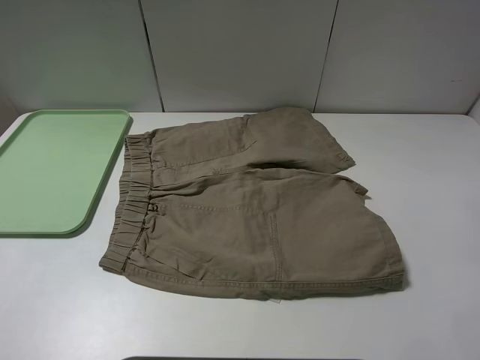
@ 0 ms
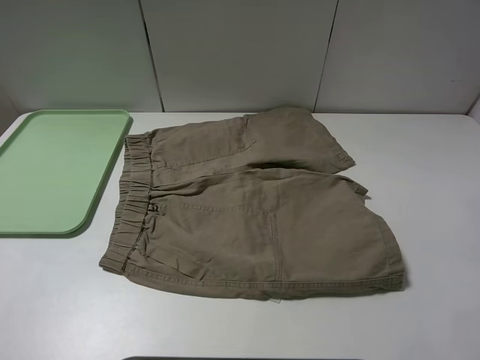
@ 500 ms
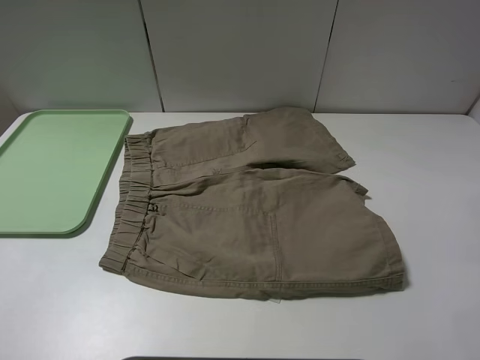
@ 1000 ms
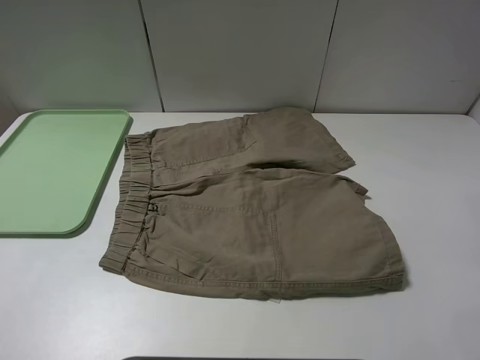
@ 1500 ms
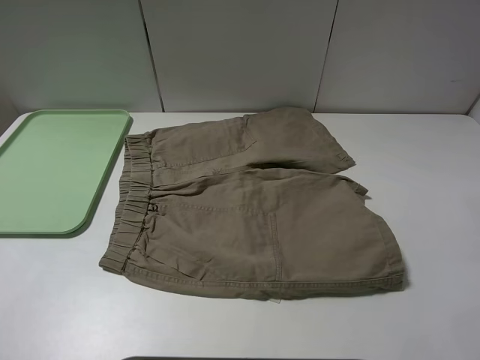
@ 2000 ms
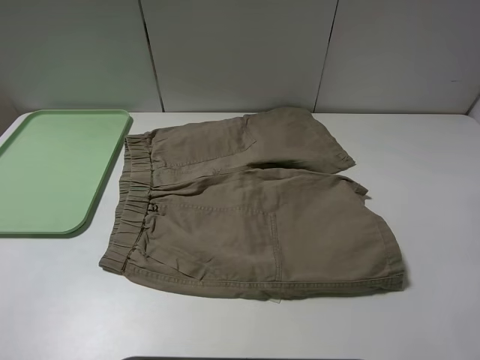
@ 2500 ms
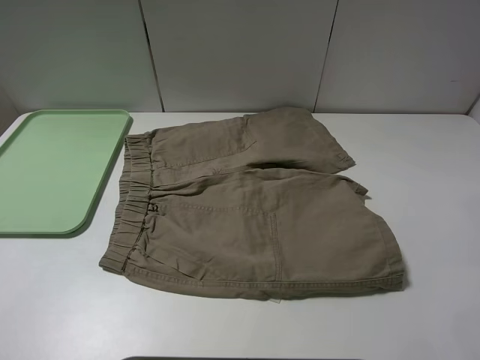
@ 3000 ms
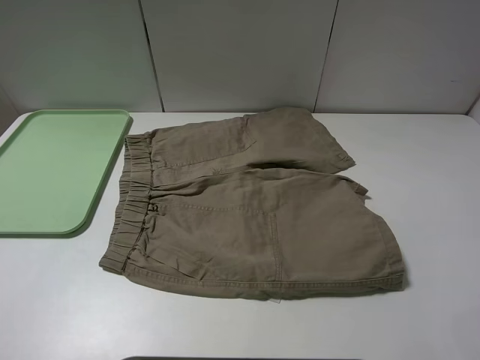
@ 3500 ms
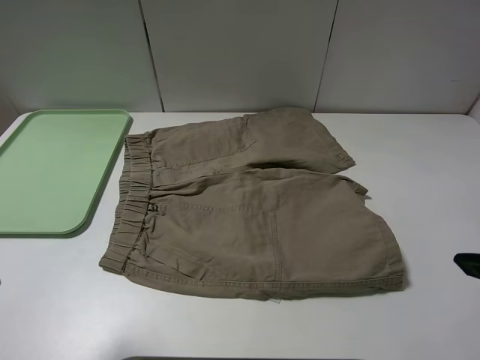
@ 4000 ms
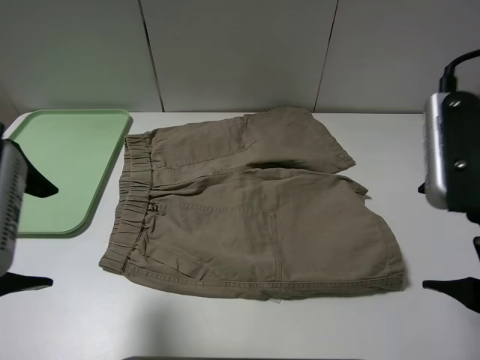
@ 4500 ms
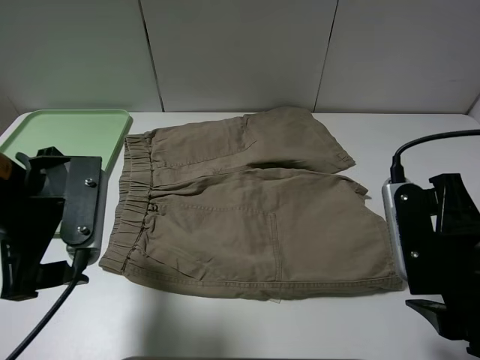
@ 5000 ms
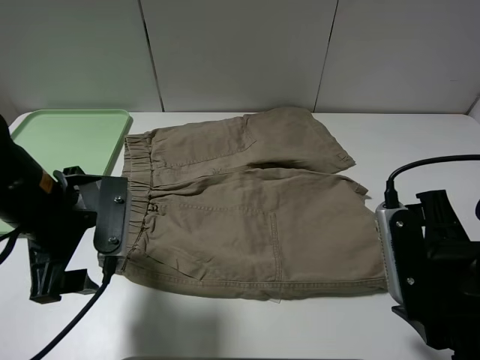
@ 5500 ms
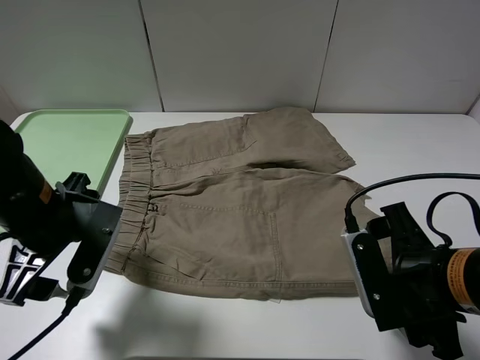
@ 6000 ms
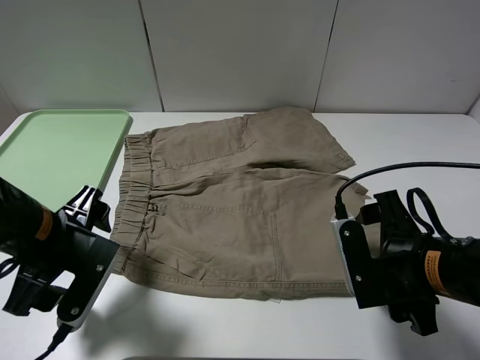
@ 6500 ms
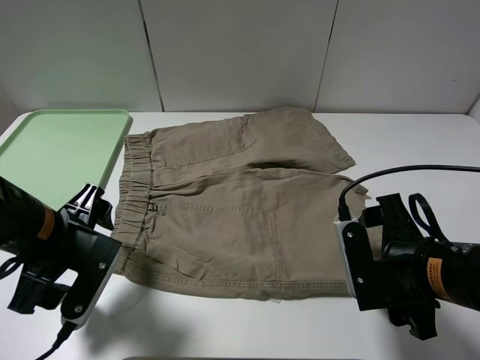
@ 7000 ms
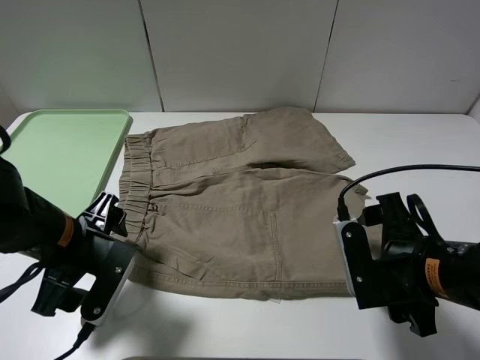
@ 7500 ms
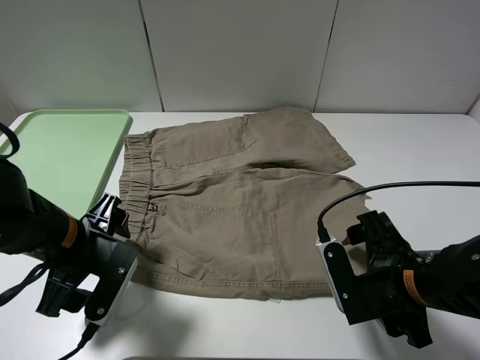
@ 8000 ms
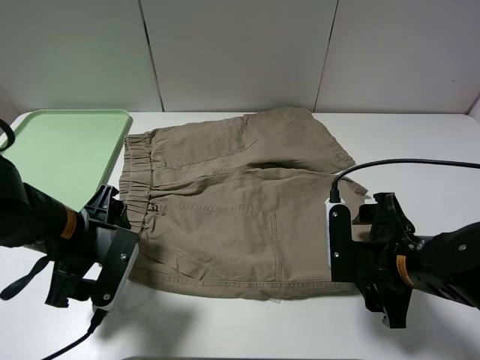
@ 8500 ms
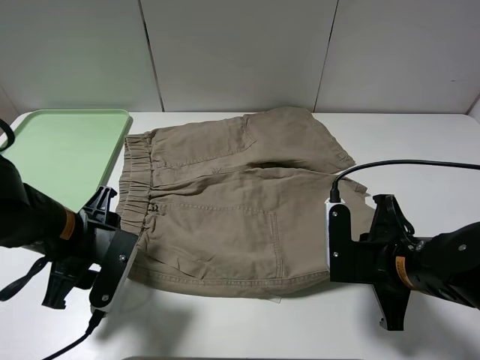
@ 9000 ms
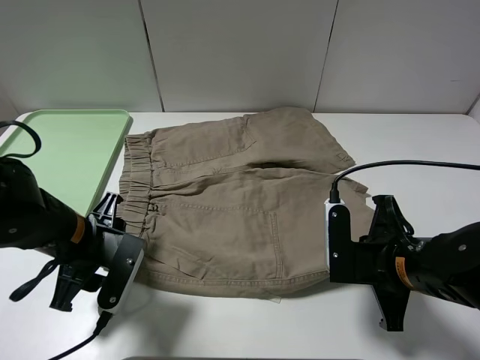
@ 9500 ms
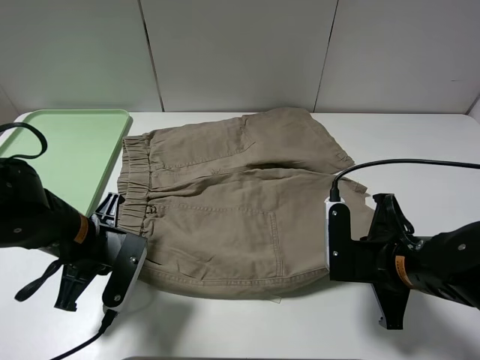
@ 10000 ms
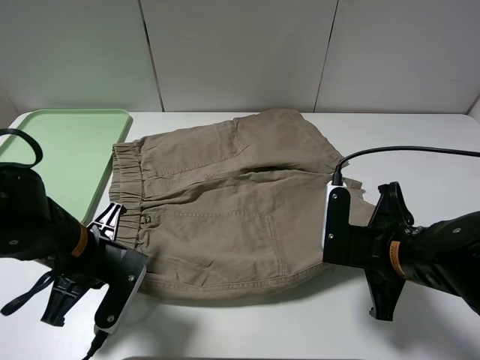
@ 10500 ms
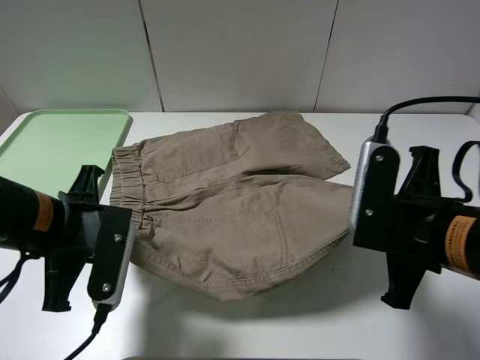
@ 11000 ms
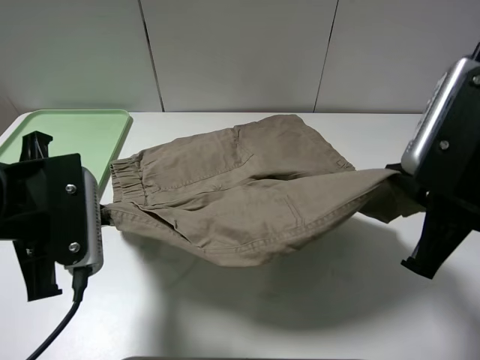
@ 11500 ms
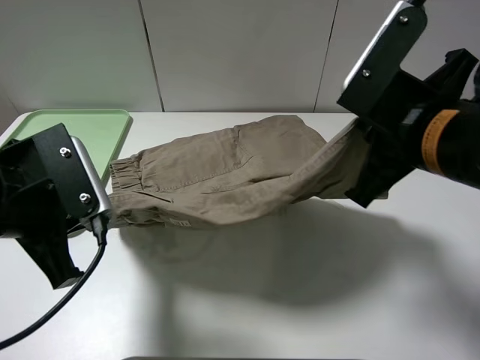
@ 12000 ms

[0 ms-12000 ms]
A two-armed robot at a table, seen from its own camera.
Task of the whole recording: fold the khaki jeans in half with two grippers, then fold them in half again, and use the left claw to place the folded fold khaki jeans on the tray.
Step, 0 ms to 9500 ms: Grasp the khaki trousers with the left gripper.
0 ms to 2000 ms: Both grippers stay put.
4000 ms to 6000 ms: The right gripper shifts about 15 cm downward; the left gripper shifts approximately 20 cm downward, forward and to the right.
6000 ms to 8000 ms: The left gripper goes some 5 cm downward.
8000 ms to 10000 ms: The right gripper closes. The left gripper closes.
10000 ms to 12000 ms: Both grippers travel together upward, about 15 cm.

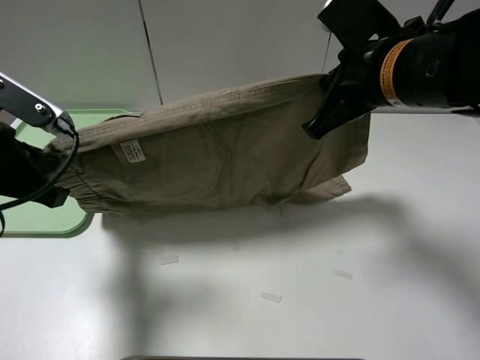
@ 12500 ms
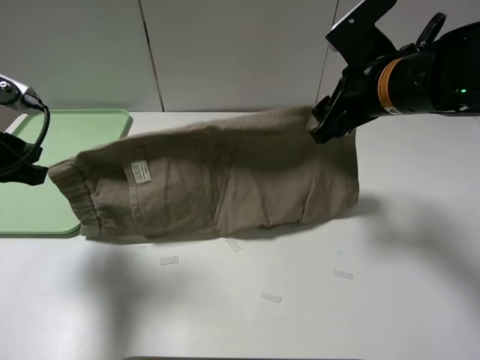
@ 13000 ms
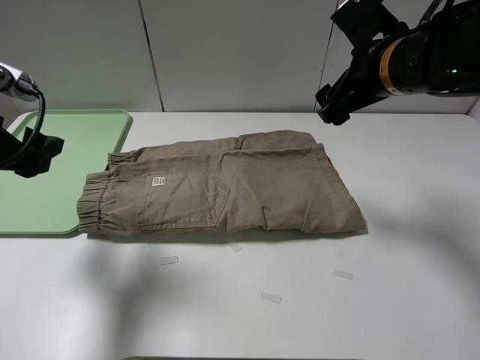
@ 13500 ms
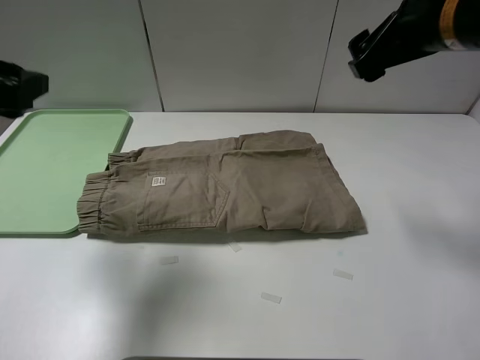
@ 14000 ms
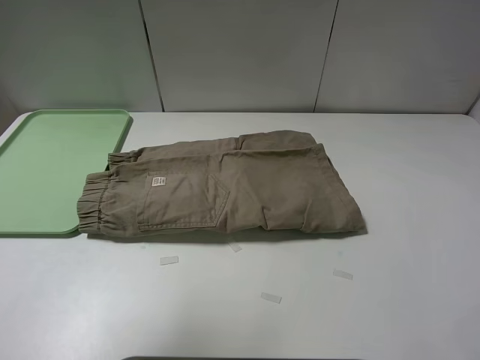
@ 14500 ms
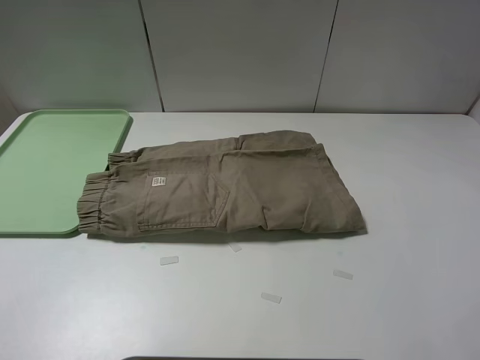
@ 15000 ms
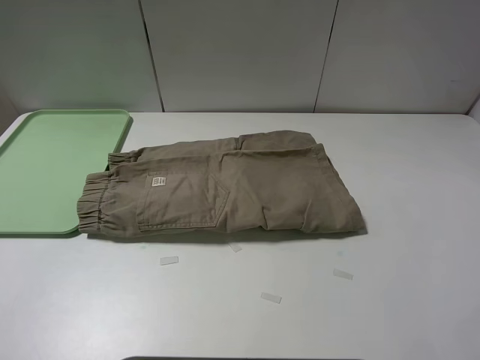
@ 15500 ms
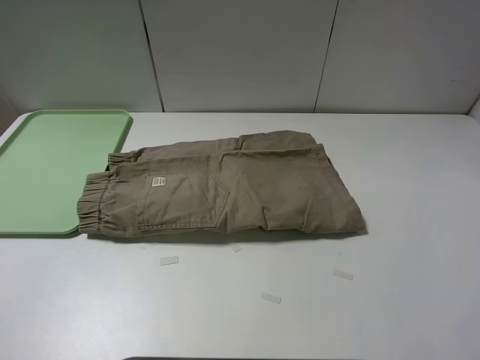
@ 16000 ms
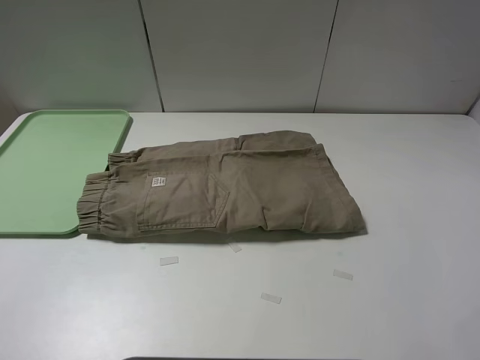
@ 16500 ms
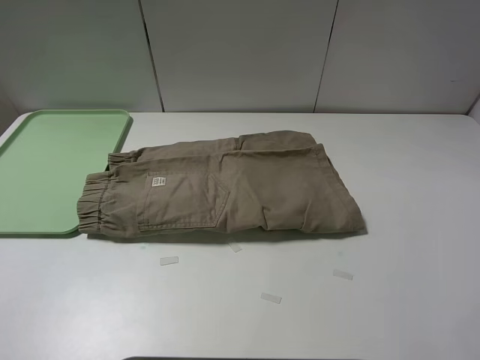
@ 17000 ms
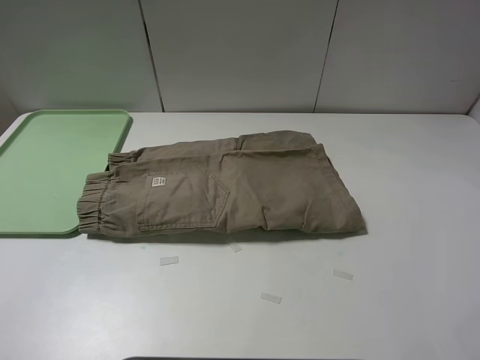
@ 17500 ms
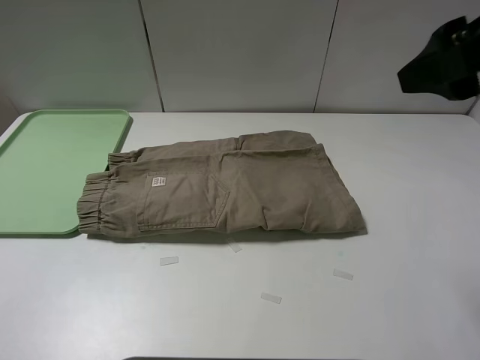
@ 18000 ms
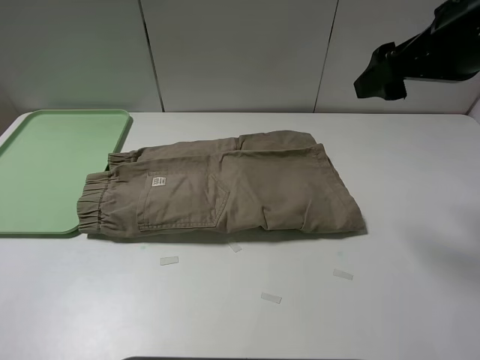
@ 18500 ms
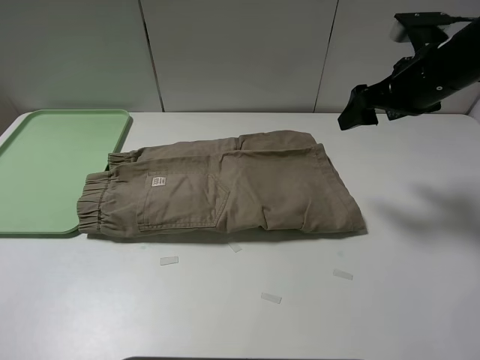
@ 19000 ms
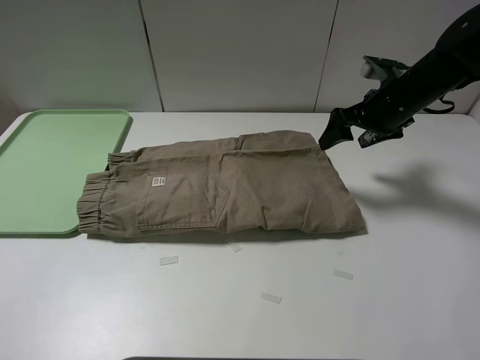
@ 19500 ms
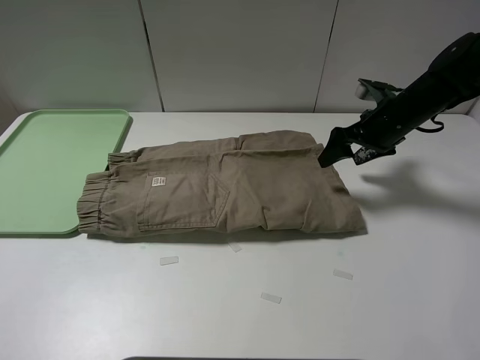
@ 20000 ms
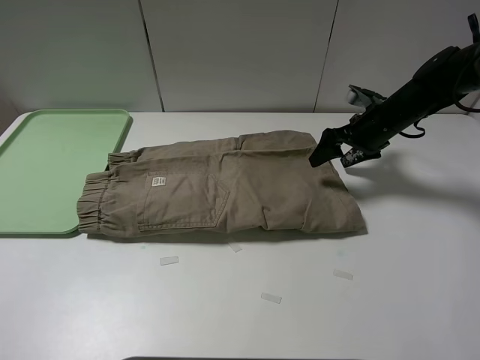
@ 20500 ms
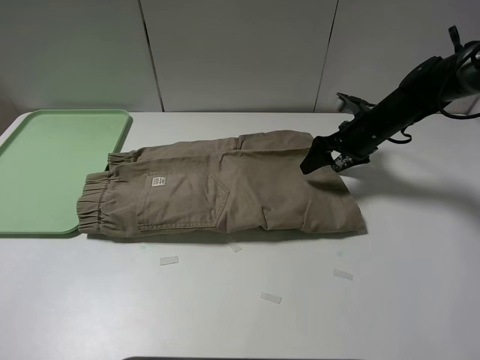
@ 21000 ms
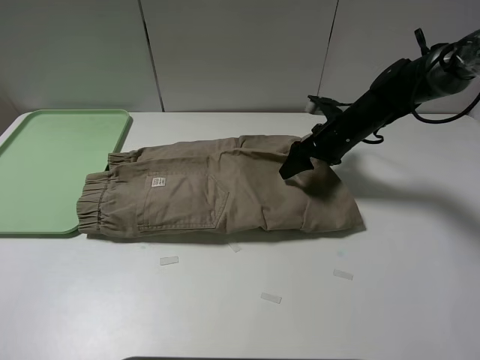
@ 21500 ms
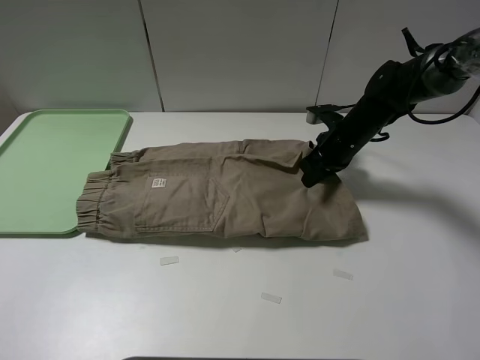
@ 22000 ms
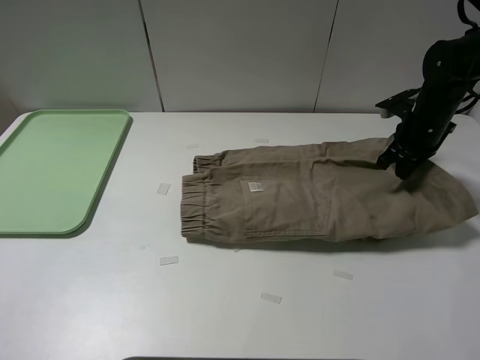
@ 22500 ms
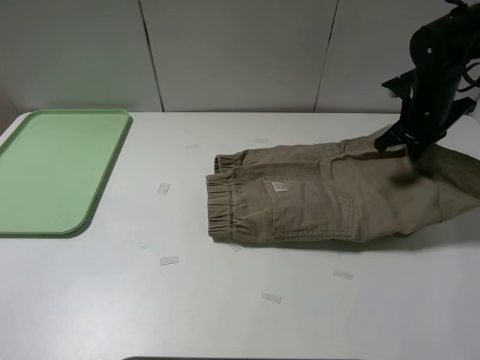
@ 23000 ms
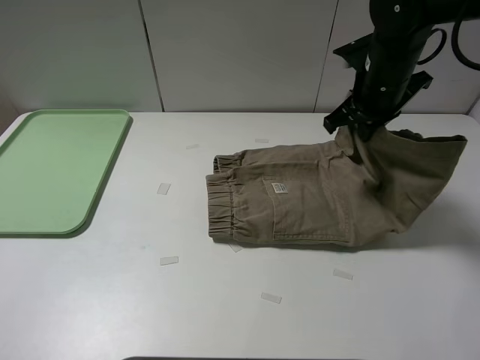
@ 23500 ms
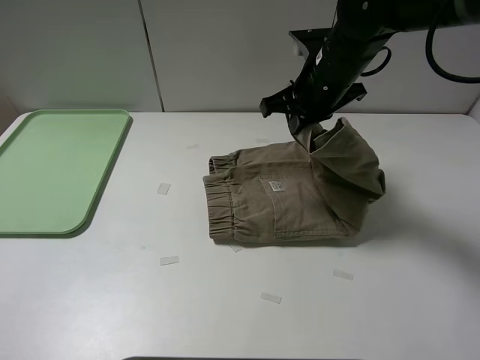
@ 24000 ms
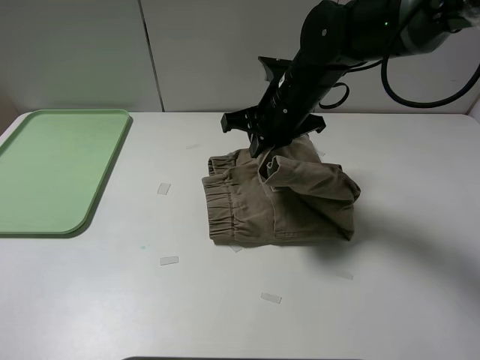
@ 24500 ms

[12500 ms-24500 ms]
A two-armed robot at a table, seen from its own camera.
Task of the whole recording: fold the khaki jeans in half with two grippers, then fold them in half again, and use the left claw to place the folded fold khaki jeans on the tray.
Step, 13500 ms to 22000 ms: Grasp the khaki trousers with the right gripper.
12500 ms to 14500 ms: The right gripper travels upward, to the right and backward by some 20 cm, and opens up. The left gripper goes roughly 20 cm upward, and opens.
14500 ms to 16500 ms: The right gripper shifts some 10 cm backward and to the right, while the left gripper travels downward and backward by approximately 20 cm.
16500 ms to 18500 ms: The right gripper travels forward and downward by roughly 25 cm.
18500 ms to 20500 ms: The right gripper travels downward and forward by some 25 cm.
20500 ms to 22500 ms: The right gripper goes approximately 5 cm to the right, and closes its fingers.
22500 ms to 24500 ms: The right gripper moves to the left, approximately 25 cm.

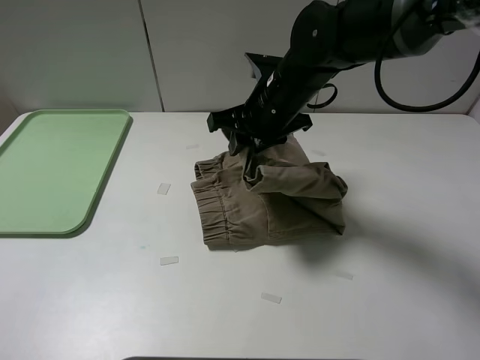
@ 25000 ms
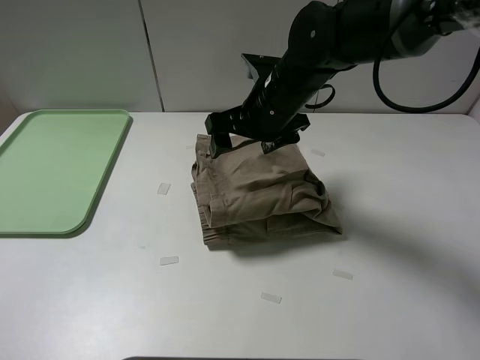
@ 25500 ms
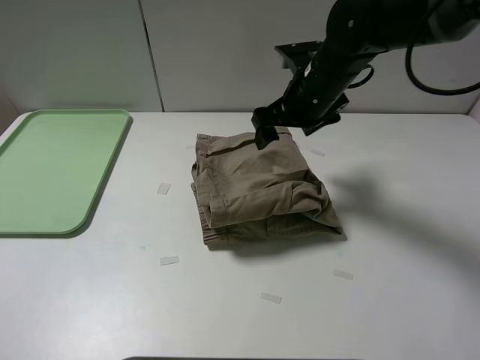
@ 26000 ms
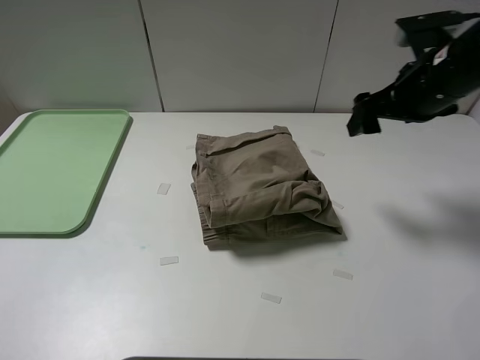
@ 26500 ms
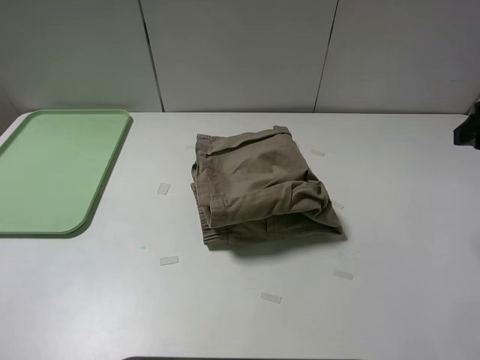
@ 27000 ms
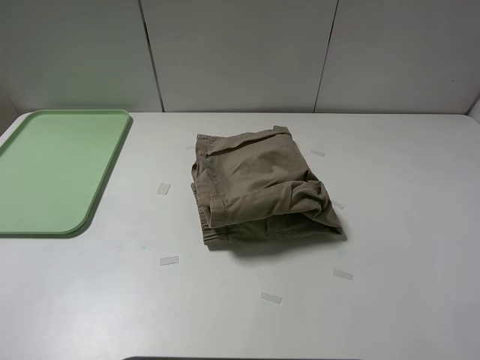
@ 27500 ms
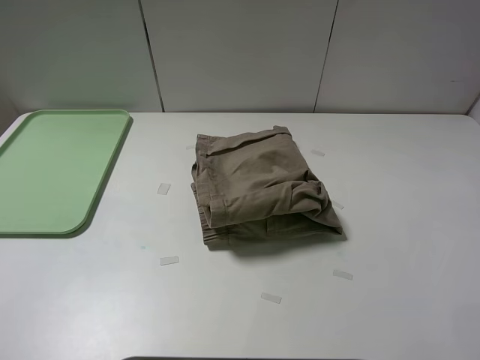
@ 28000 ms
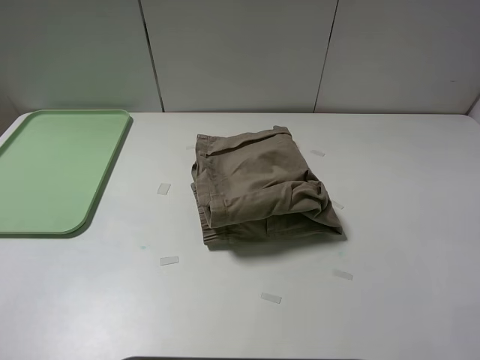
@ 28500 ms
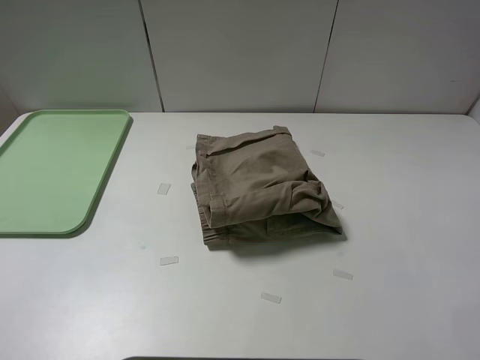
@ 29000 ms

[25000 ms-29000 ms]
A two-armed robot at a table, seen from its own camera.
Task of the whole recording: fold the khaki jeans in half with two grippers, then fold them in half again, and use the left claw to place the folded fold khaki jeans on the tray.
25000 ms to 27000 ms: The right gripper is displaced to the right and backward by about 30 cm, and opens its fingers.
